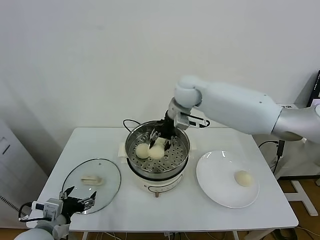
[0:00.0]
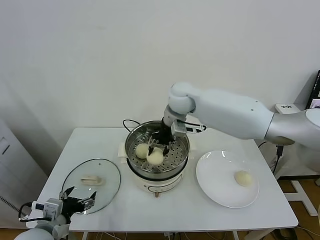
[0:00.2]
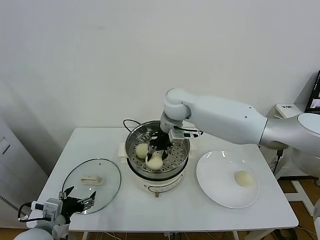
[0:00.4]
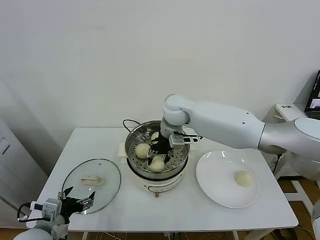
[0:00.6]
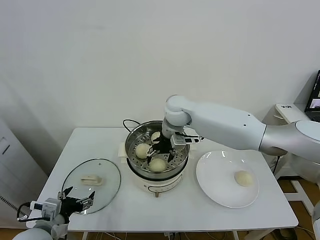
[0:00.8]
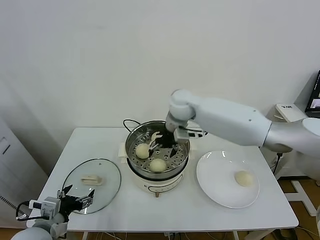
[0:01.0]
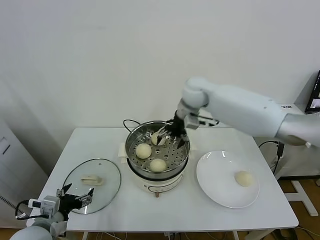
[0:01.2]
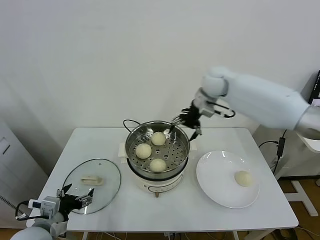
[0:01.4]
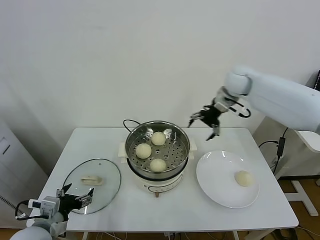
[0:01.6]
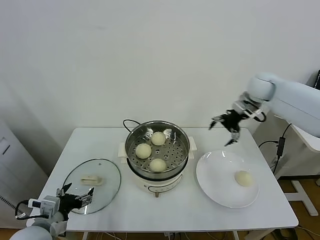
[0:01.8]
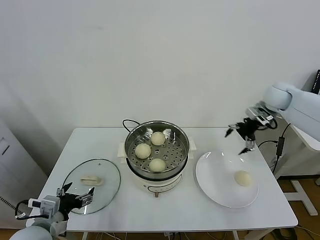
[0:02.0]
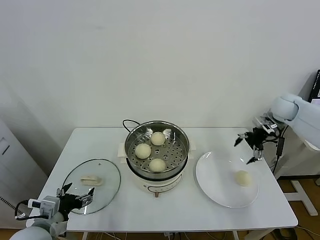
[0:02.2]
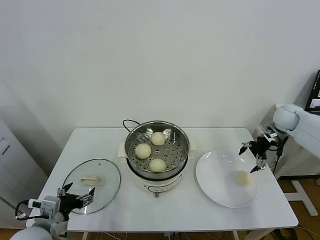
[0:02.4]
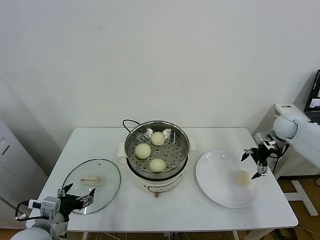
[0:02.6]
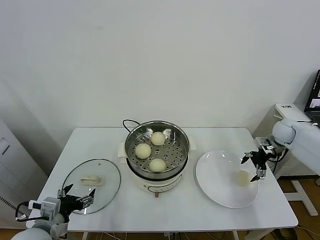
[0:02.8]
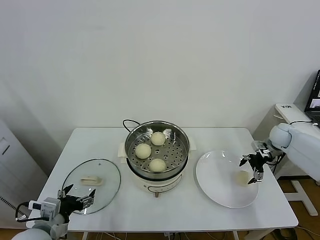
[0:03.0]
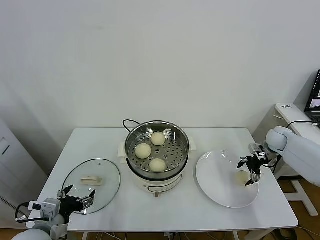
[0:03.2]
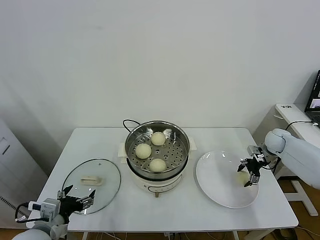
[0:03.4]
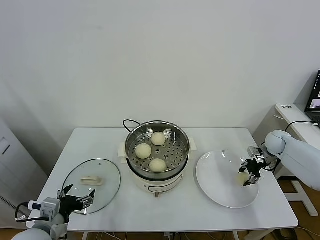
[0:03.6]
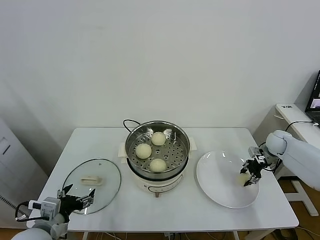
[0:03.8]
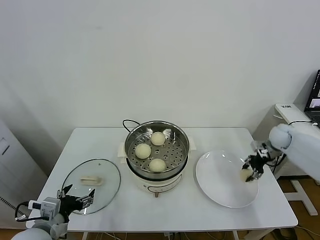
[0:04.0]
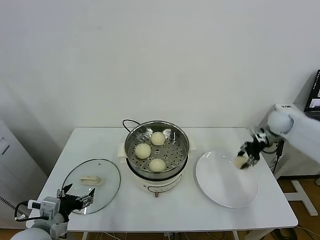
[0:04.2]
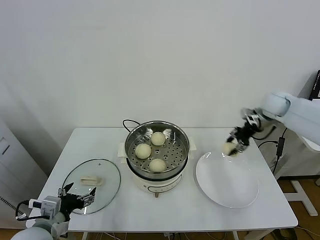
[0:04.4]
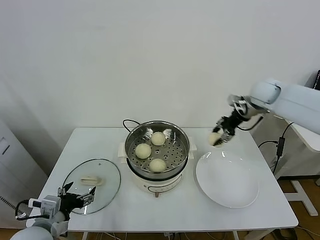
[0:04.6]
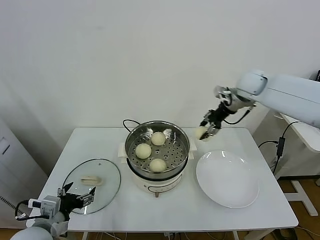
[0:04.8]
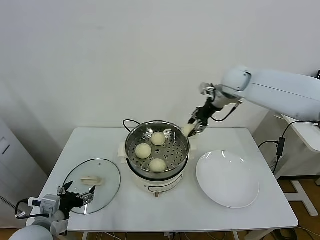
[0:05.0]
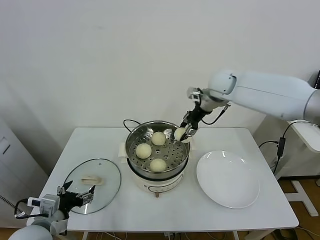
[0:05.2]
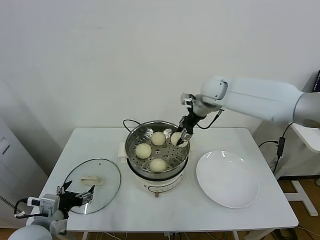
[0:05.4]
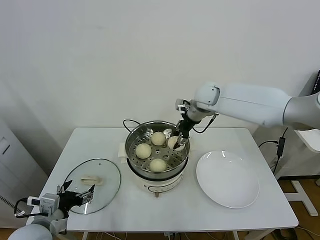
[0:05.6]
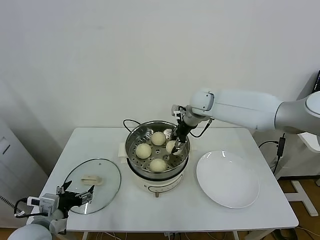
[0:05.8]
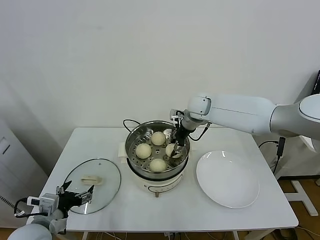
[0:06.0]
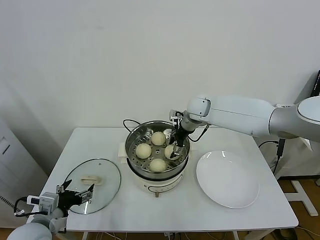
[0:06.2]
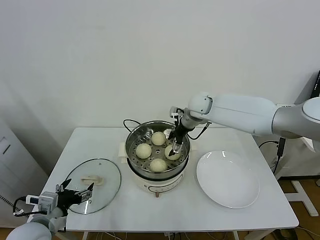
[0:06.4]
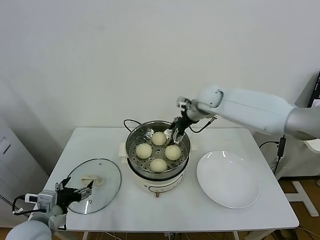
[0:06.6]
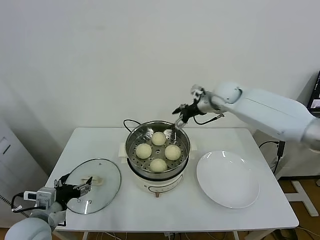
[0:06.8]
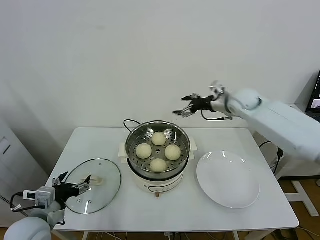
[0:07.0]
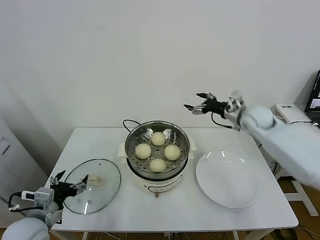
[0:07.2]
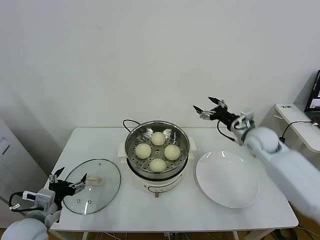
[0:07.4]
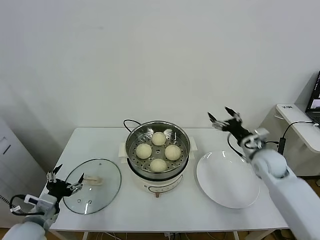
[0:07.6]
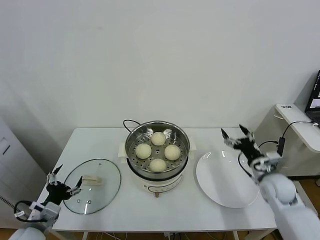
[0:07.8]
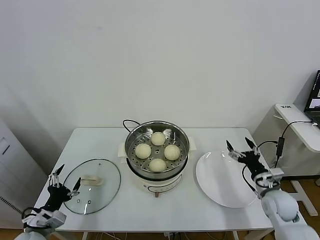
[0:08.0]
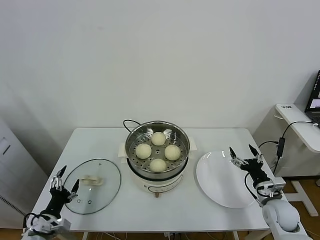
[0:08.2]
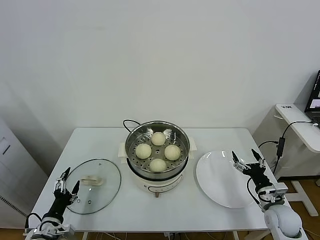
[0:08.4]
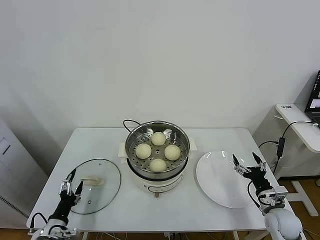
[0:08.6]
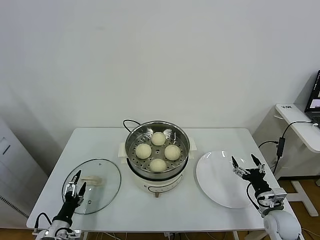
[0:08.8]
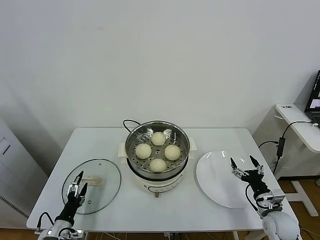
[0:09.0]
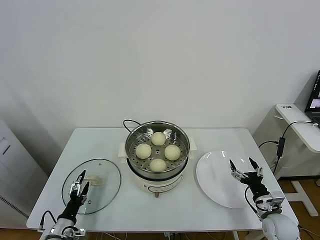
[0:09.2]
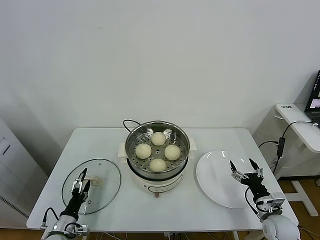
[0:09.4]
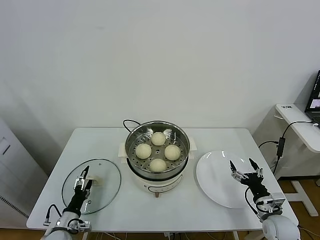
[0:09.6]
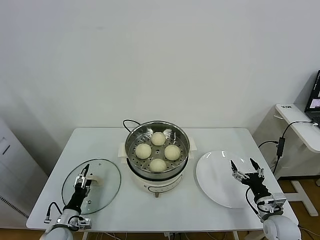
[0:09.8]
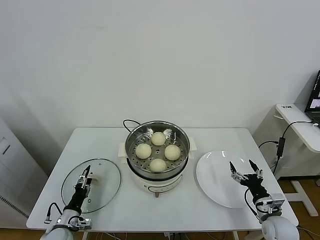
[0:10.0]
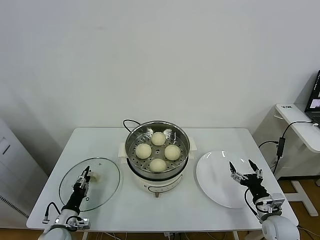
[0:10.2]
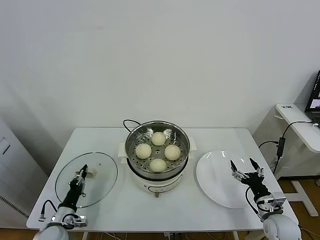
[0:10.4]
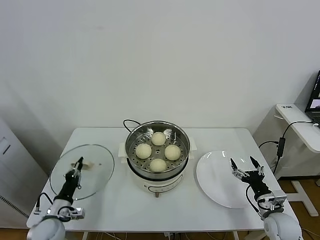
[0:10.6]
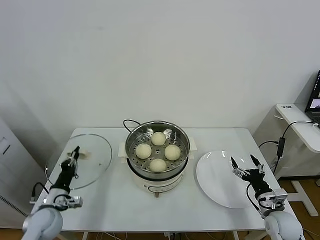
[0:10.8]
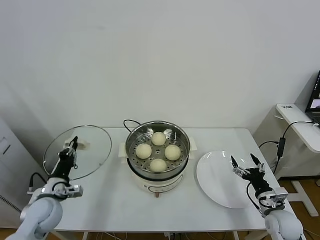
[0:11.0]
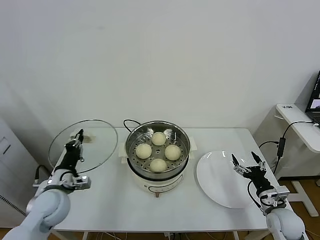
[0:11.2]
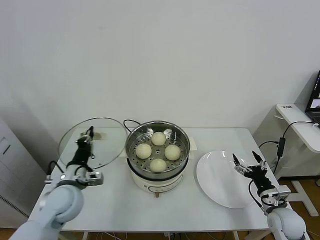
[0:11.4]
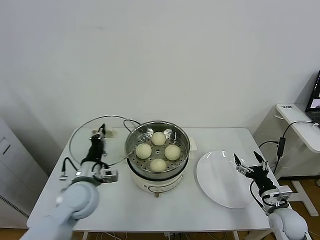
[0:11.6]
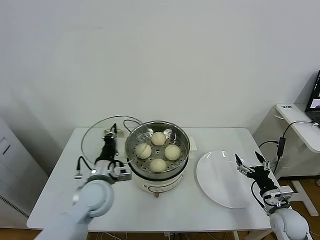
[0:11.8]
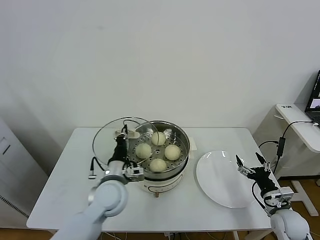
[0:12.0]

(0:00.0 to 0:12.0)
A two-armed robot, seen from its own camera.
Task of the whole recording: take steamed baozi put them in steamer.
Step, 0:01.0 - 0:03.6: Grasp the baozi in the plate with right gripper.
Step, 0:03.8 - 0:06.4: Place the baozi on the steamer with right gripper.
Step, 0:06.6 - 0:10.6: Grasp the pot lid with left gripper.
0:00.0 - 0:01.6: The right gripper is displaced to the right by about 20 cm, and opens up.
0:01.6 - 0:03.0: The right gripper travels downward and to the right by roughly 30 cm.
0:03.0 - 0:04.4: The right gripper moves upward and to the left, some 15 cm, and closes its fingers.
0:04.4 - 0:06.0: The right gripper moves to the left, roughly 25 cm.
0:06.0 - 0:07.6: The right gripper travels to the right, backward and downward by roughly 30 cm, and opens its fingers.
0:07.6 - 0:09.0: The left gripper goes roughly 15 cm downward. The right gripper moves backward and downward, roughly 20 cm.
0:09.0 - 0:10.4: The left gripper closes.
0:10.4 - 0:12.0: The left gripper goes some 30 cm to the right and upward.

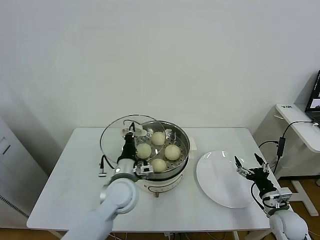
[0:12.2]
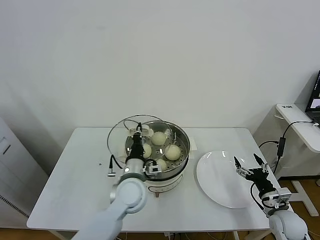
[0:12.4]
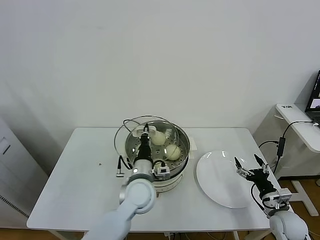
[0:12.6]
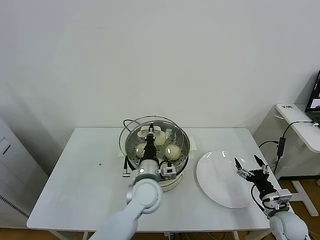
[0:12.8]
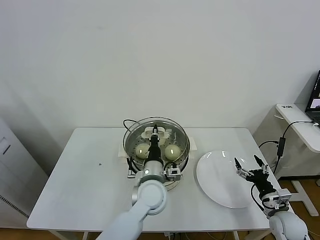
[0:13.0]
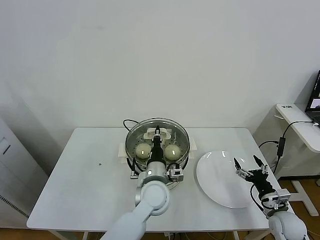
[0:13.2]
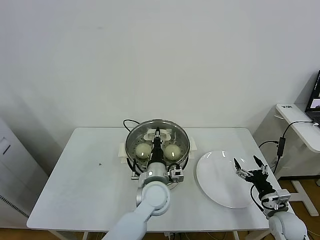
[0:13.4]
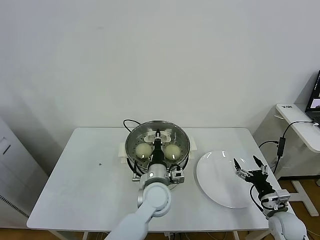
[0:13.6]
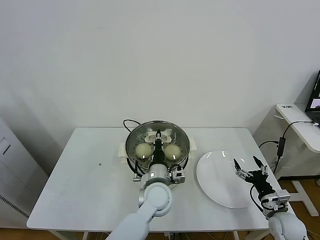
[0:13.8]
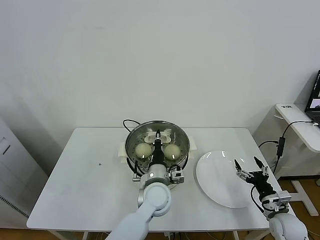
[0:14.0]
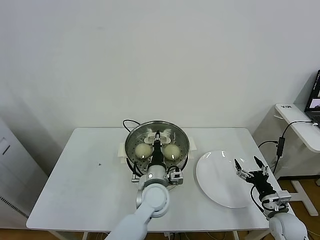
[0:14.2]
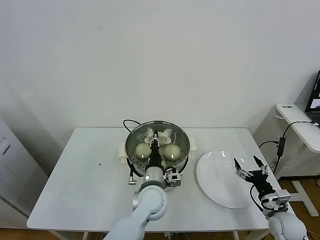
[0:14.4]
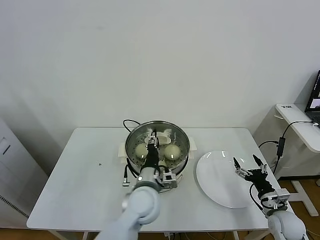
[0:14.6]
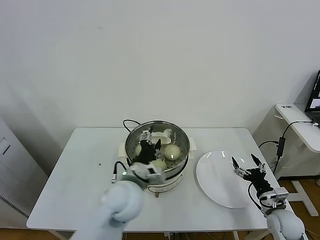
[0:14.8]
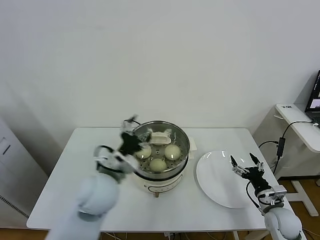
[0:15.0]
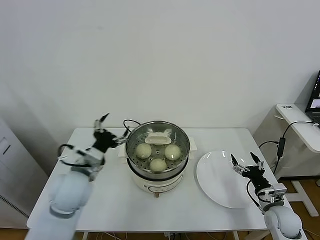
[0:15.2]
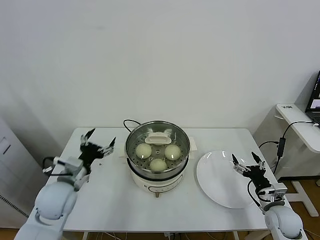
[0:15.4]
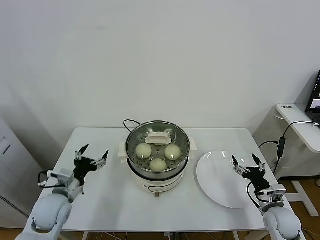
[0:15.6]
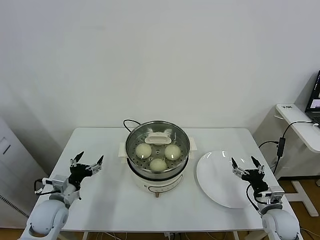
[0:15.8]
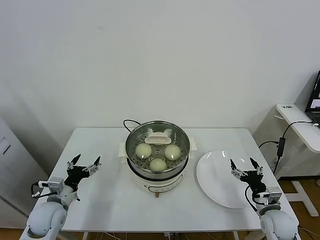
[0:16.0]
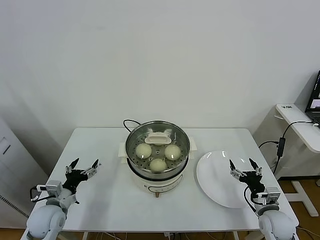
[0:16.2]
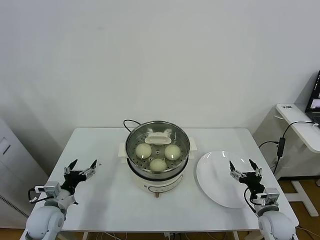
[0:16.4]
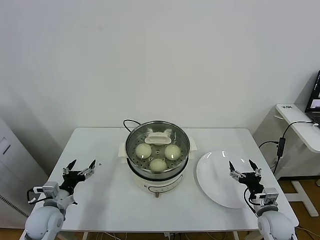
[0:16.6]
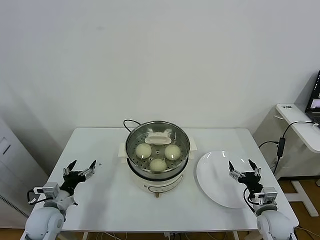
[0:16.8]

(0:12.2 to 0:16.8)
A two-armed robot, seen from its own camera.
Task of the whole recording: take steamed baozi put them in steamer.
Step, 0:12.2 - 0:15.0: Place the pot lid on the steamer with left gripper.
0:12.2 - 0:13.8: The left gripper shifts some 10 cm to the right.
0:13.8 - 0:15.2: The left gripper goes roughly 25 cm to the left and upward, and opens.
0:15.2 - 0:16.8: The left gripper heads downward and to the left, covering approximately 25 cm.
